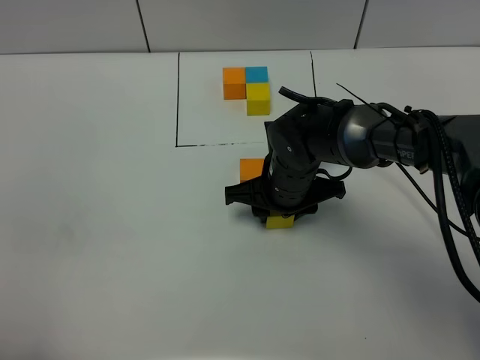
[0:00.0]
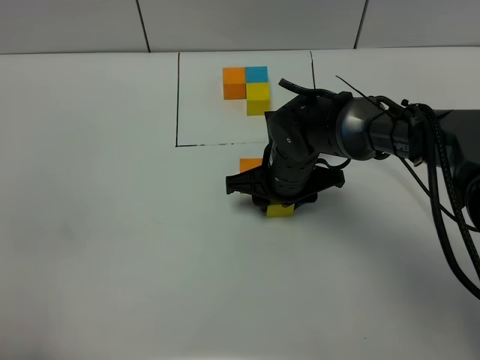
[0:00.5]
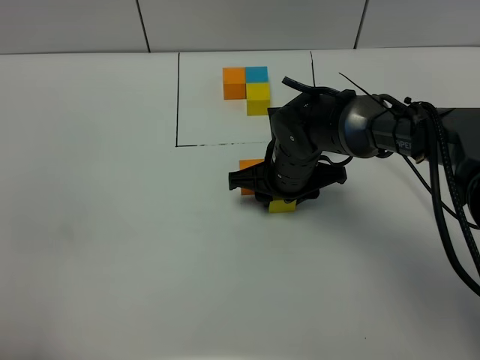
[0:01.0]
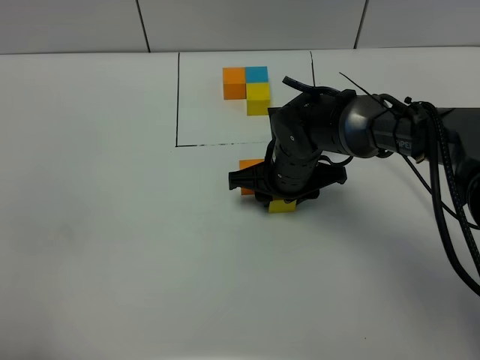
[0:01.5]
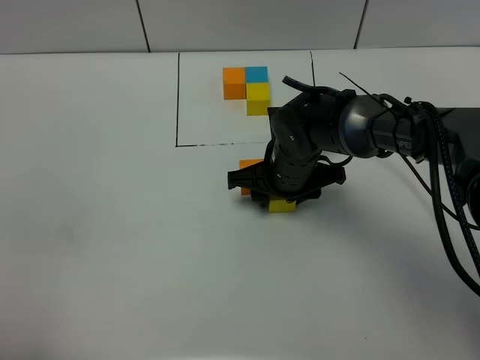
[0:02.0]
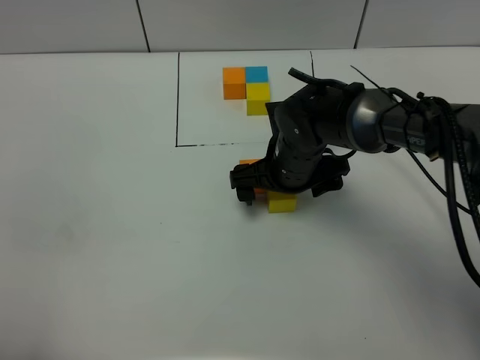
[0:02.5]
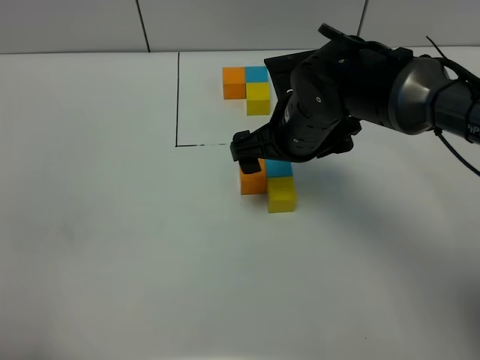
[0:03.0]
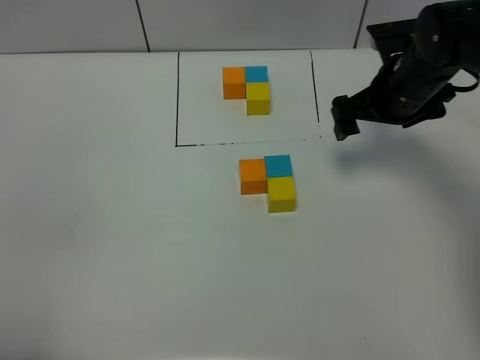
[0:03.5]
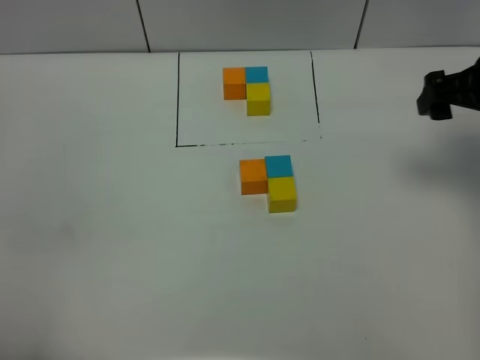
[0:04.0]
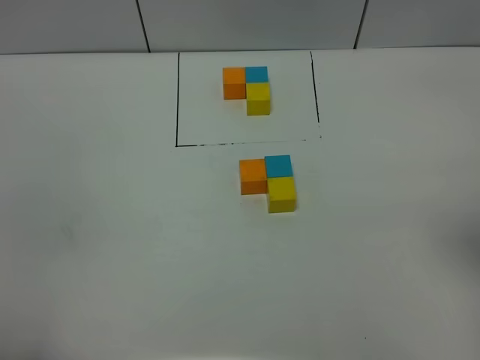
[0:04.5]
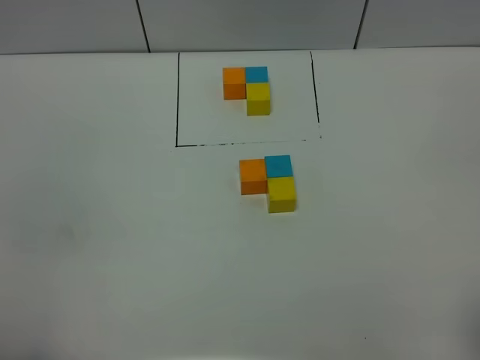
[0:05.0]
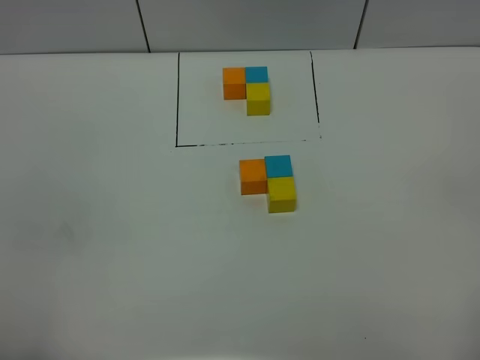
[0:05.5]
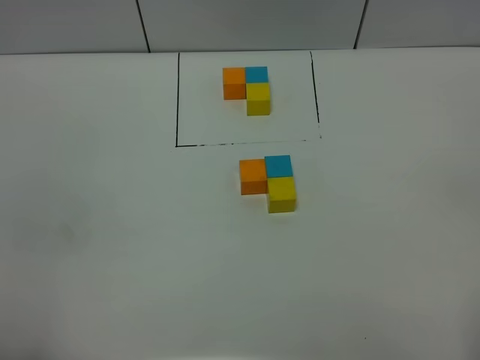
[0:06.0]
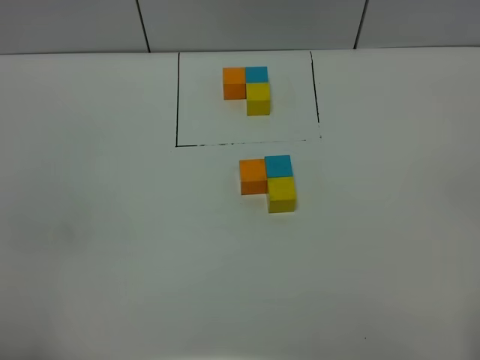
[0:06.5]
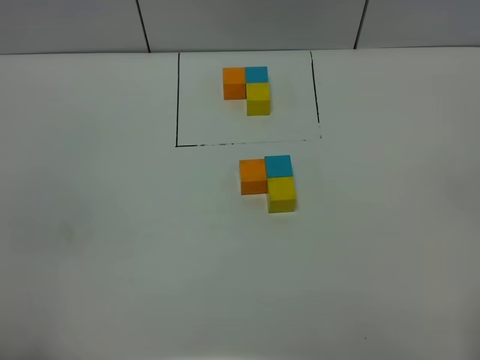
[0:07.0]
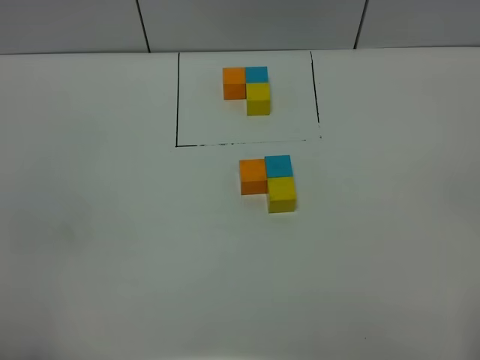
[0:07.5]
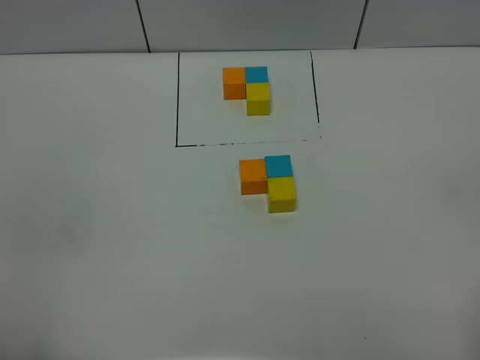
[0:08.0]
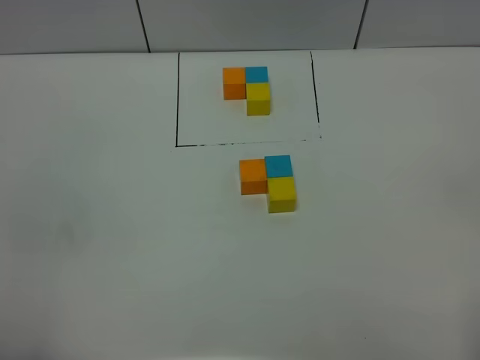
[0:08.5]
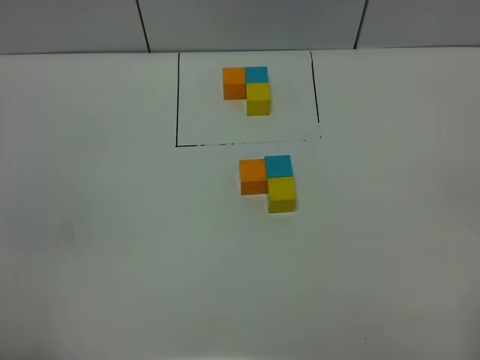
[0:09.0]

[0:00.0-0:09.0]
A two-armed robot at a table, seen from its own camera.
Task of the whole recording: According to the building block template in front, assemble the scattered blocks together.
Step, 0:00.0 to 0:02.0: Put the yellow build block on the behind of the blue build block.
0:00.0 to 0:02.0: The grippers stay close to where they were, moving slightly.
0:02.0 to 0:04.5: The right gripper moves upward, to the right and backward, some 40 cm, and opens.
0:07.0 to 0:09.0: Both grippers stay about where they are.
